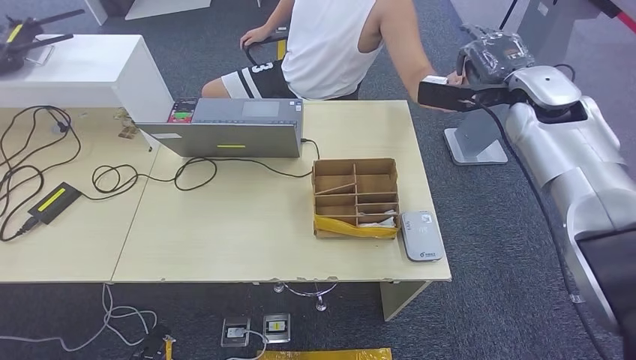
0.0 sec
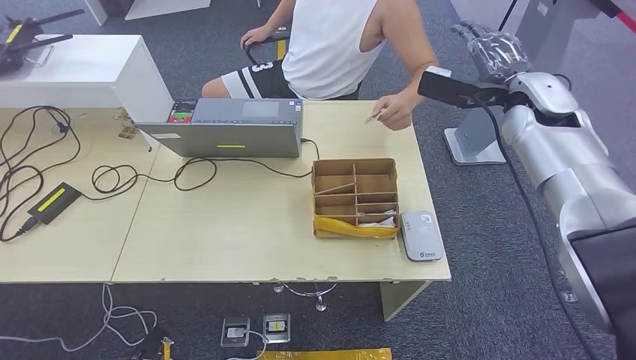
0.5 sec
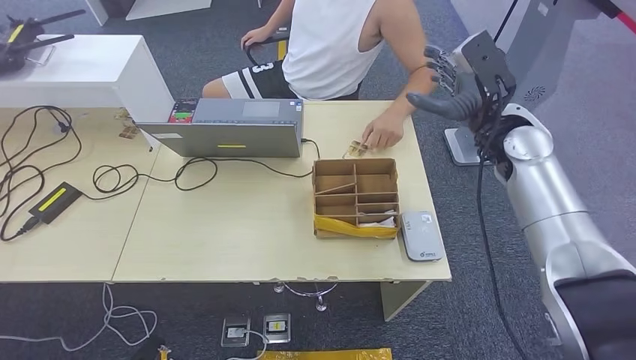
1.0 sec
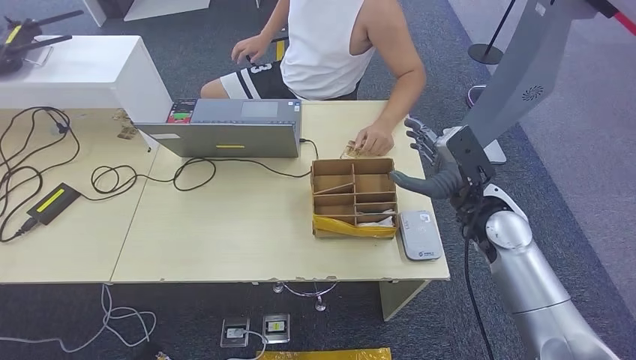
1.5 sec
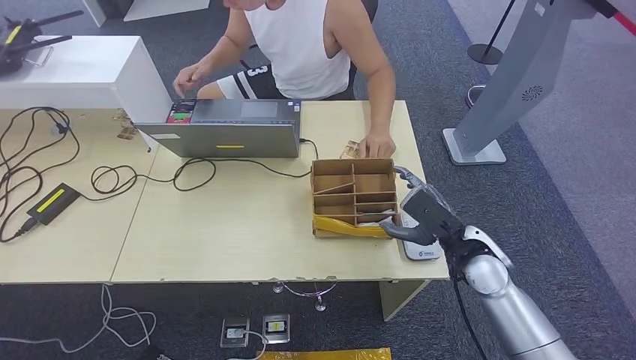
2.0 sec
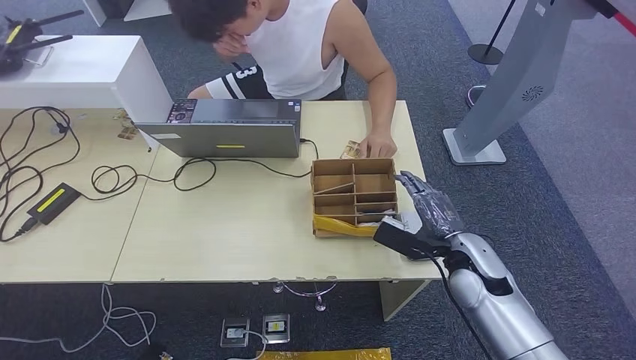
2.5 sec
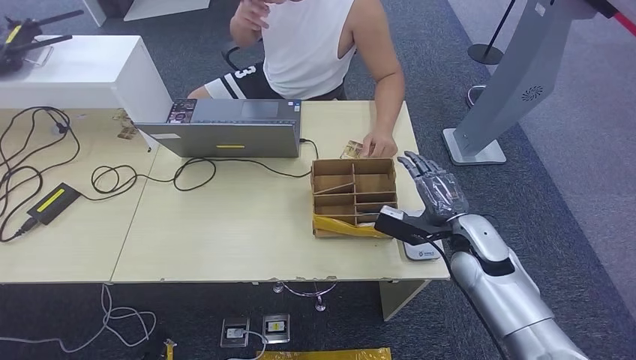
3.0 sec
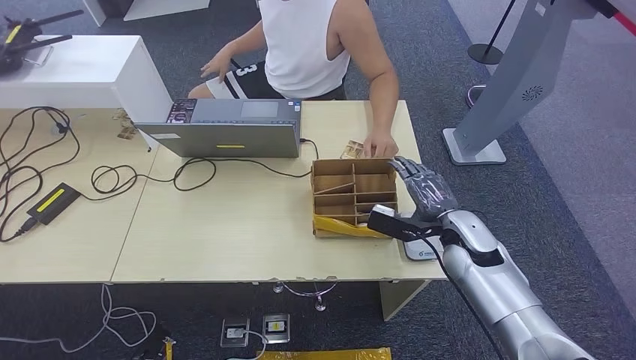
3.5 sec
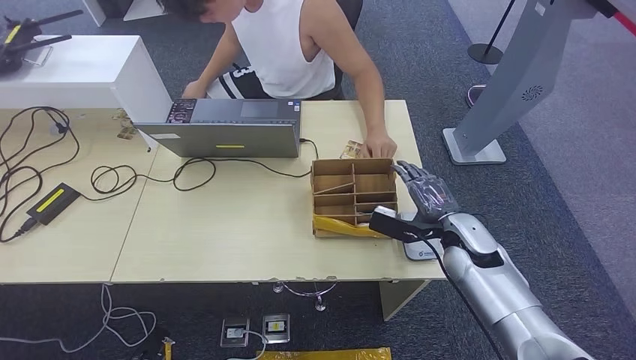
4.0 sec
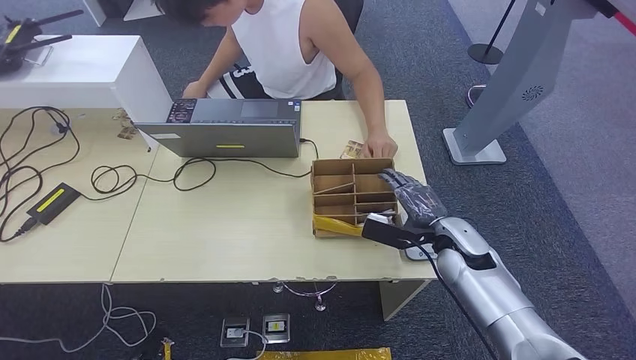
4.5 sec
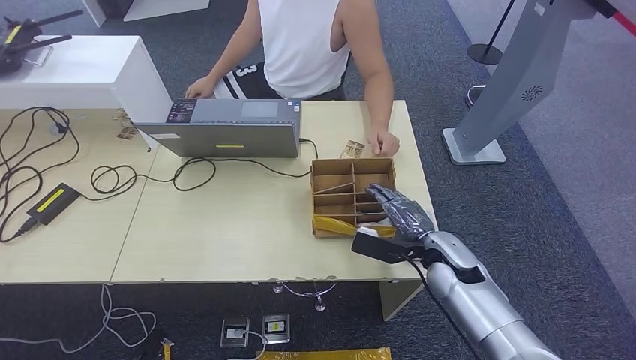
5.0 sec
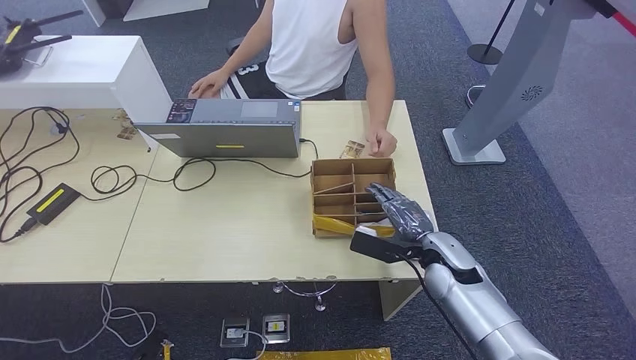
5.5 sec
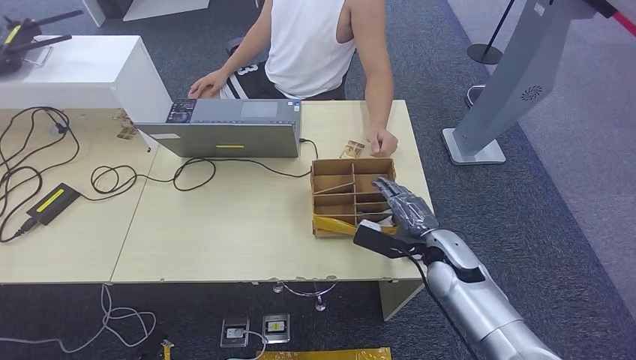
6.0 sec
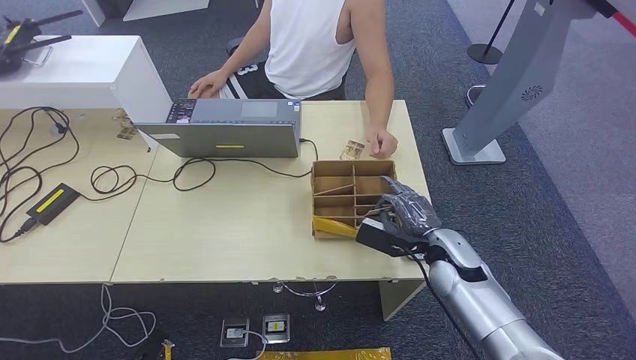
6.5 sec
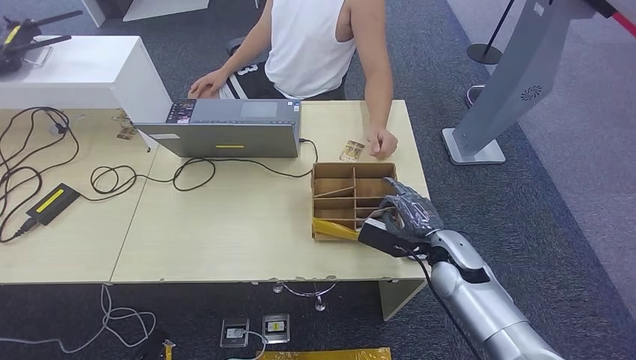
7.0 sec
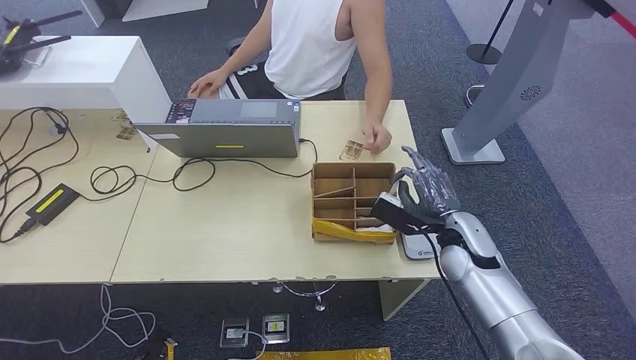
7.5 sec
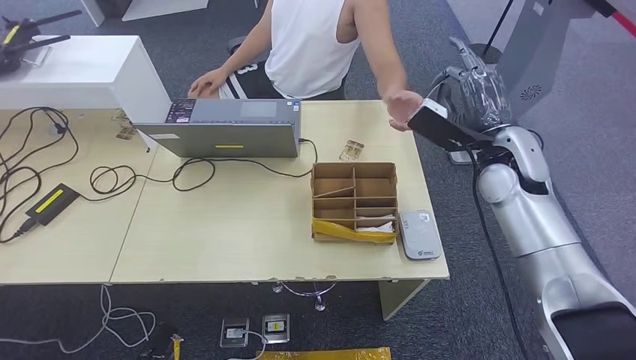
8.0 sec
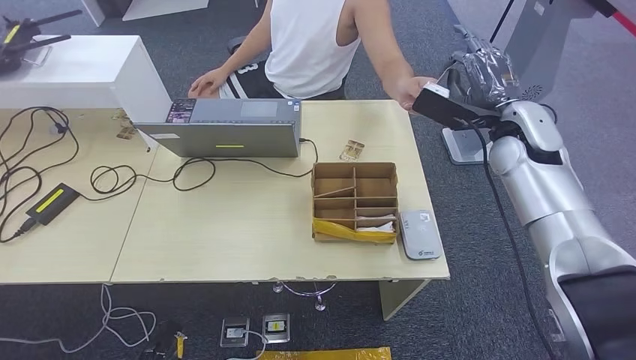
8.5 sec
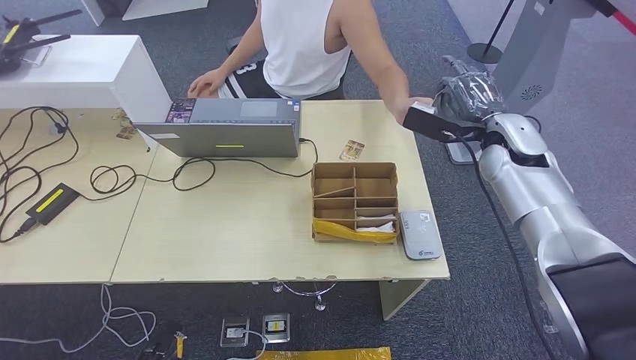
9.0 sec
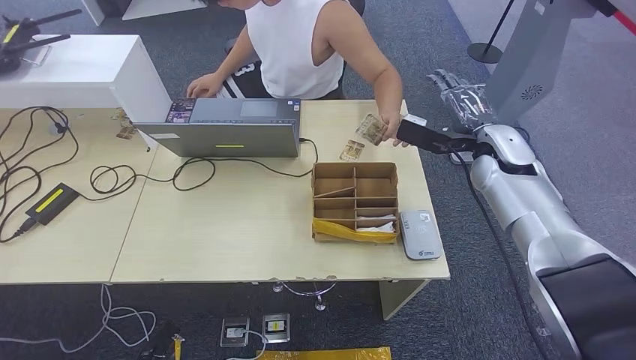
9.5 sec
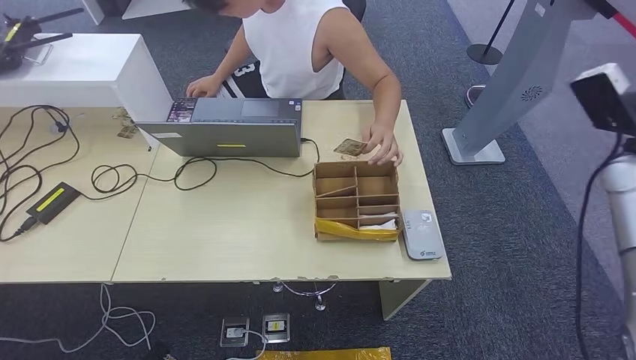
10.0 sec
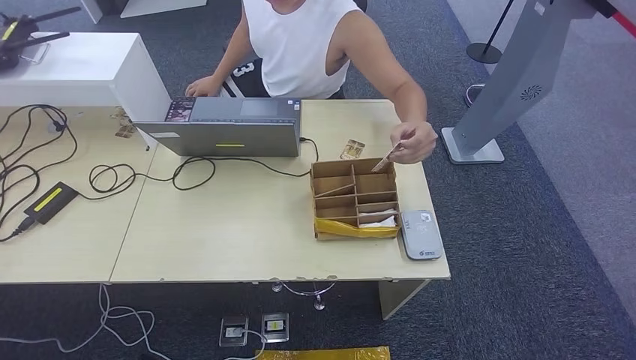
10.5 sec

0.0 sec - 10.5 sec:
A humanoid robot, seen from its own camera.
Step, 0.0 sec - 2.0 sec: Hand the ID card to the person.
Step, 2.5 sec - 8.5 sec: Pick up the room key from the key card box.
Step, 9.0 sec - 10.5 sec: Hand the room key to the person.
4.0 sec - 6.5 sec: There are only small adjustments of the hands.
6.5 sec - 8.5 sec: The right hand is displaced upward and forward by some 25 cm.
8.5 sec - 10.5 sec: The left hand shifts about 5 cm backward; the right hand shifts approximately 50 cm to the right and backward.
